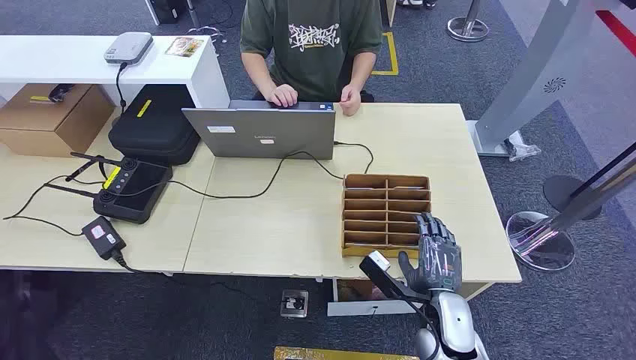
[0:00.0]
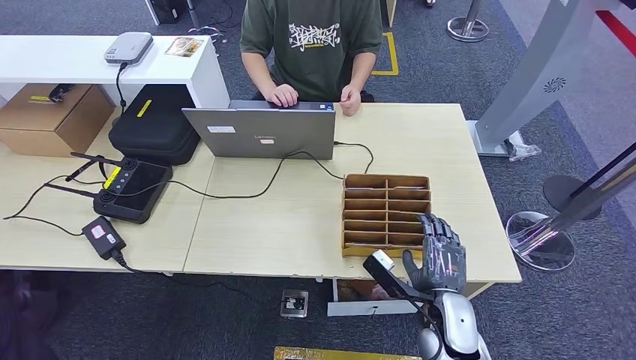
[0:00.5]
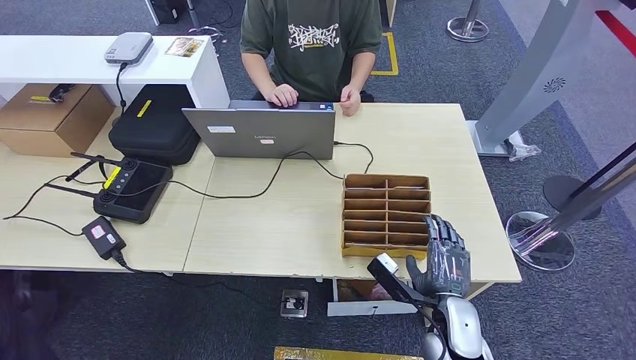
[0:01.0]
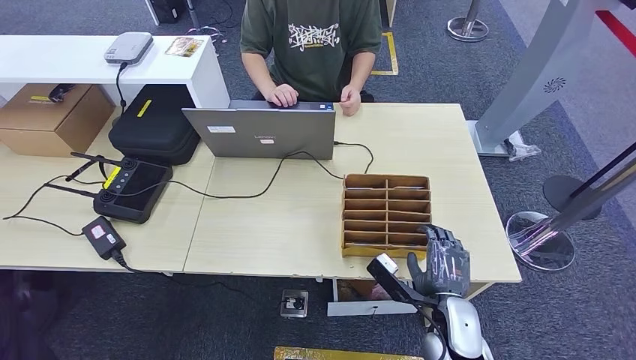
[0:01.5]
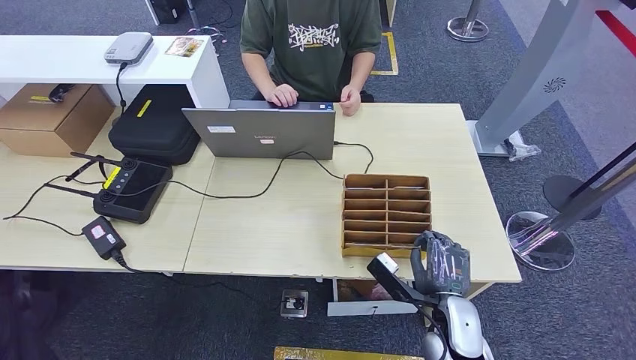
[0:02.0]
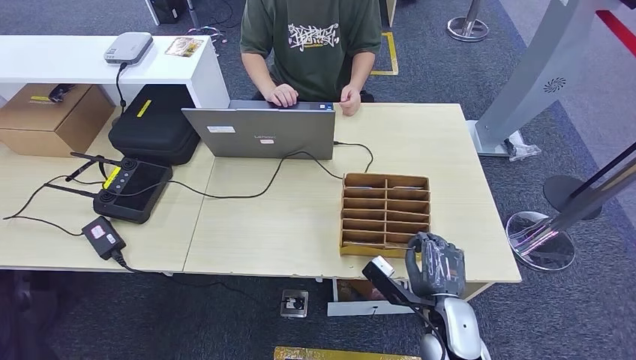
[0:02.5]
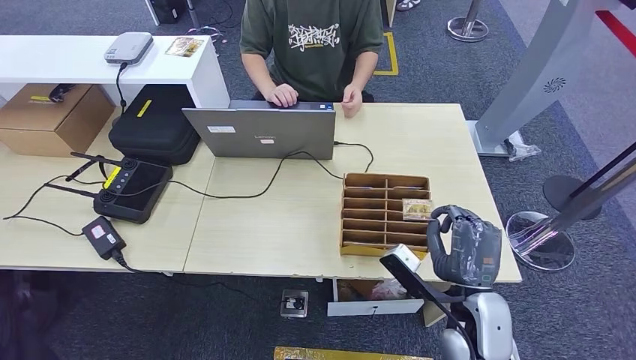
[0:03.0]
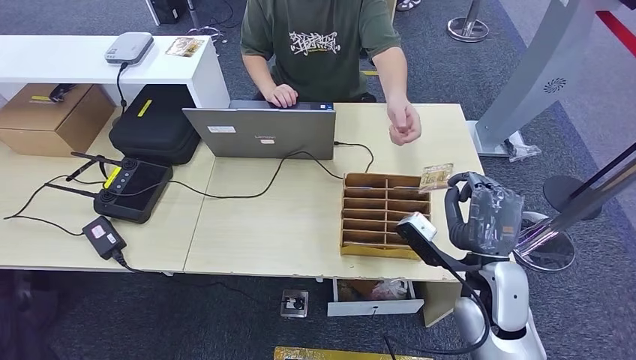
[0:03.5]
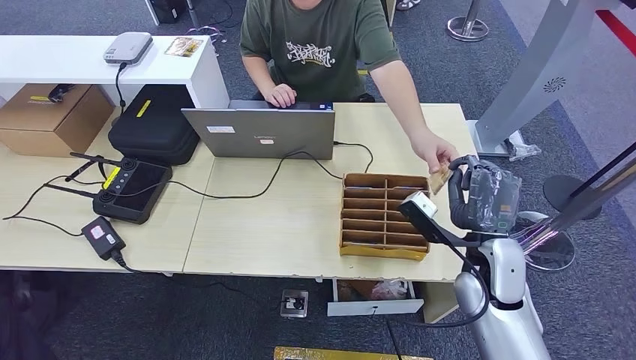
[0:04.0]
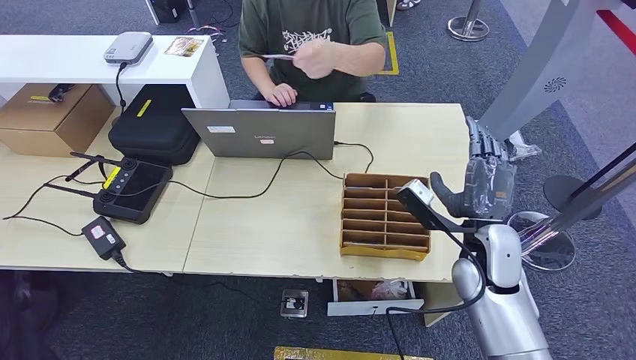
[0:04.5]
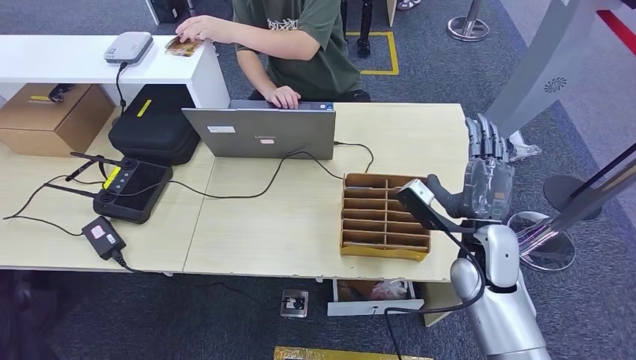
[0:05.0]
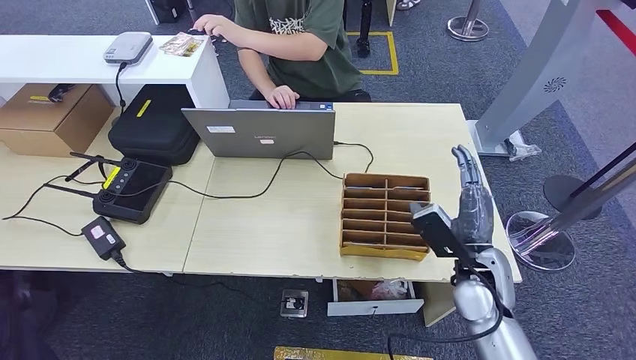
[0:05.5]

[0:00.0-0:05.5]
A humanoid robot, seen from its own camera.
Step, 0:00.0 to 0:03.0: Pick up the room card from the card holder.
Step, 0:03.5 to 0:05.5: Hand the room card to the target.
0:02.0 to 0:03.5: The right hand shifts some 10 cm upward.
